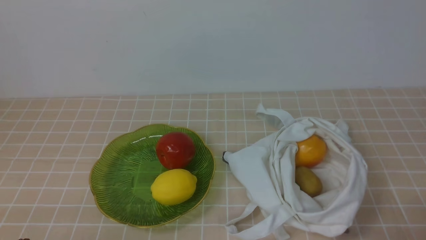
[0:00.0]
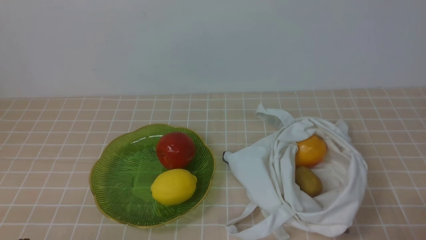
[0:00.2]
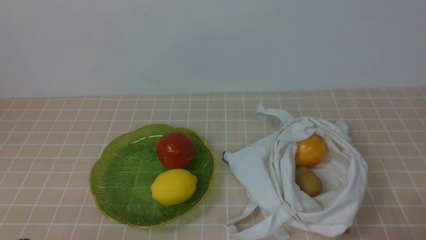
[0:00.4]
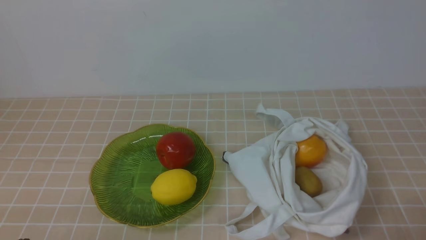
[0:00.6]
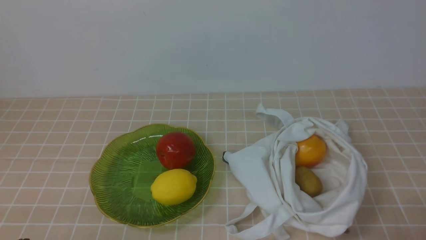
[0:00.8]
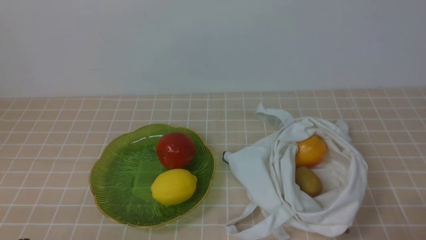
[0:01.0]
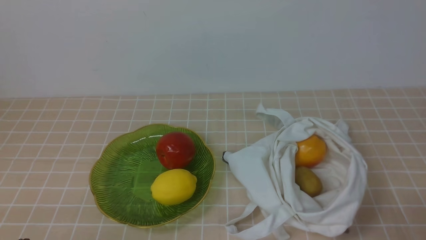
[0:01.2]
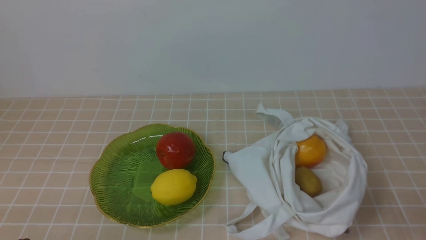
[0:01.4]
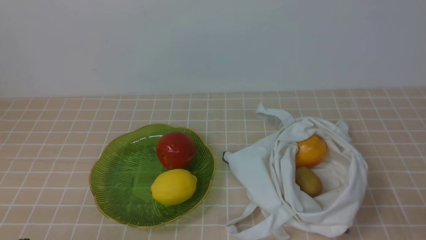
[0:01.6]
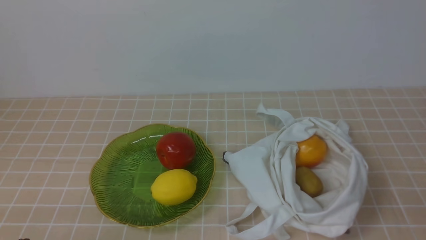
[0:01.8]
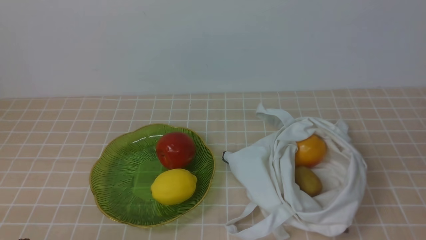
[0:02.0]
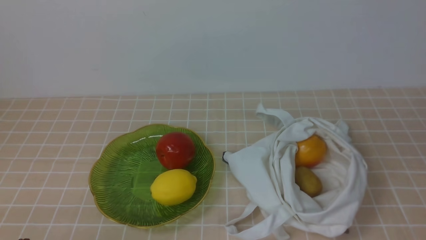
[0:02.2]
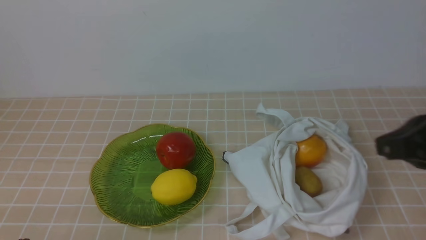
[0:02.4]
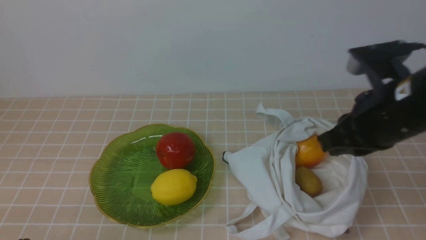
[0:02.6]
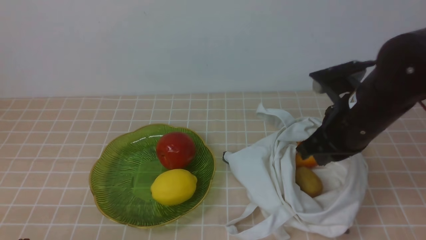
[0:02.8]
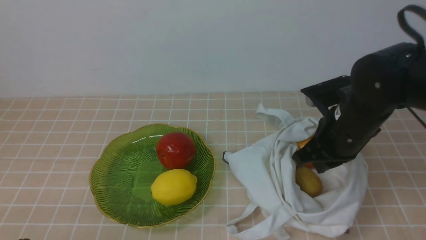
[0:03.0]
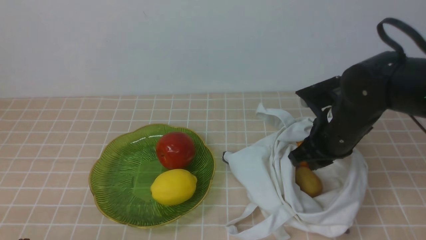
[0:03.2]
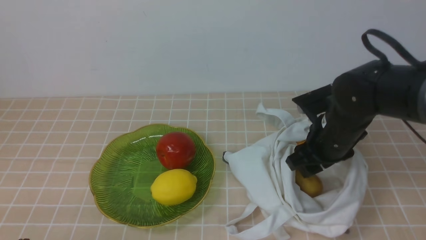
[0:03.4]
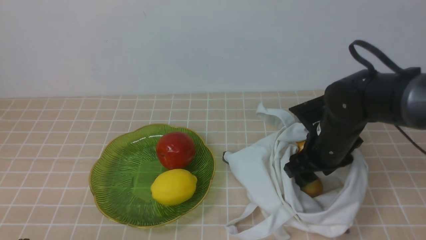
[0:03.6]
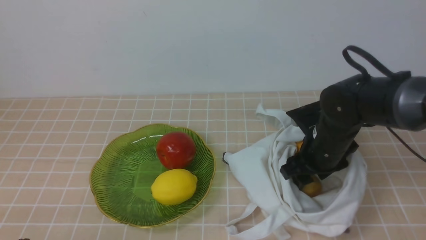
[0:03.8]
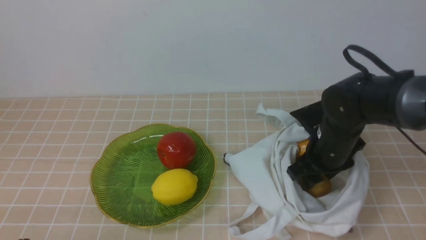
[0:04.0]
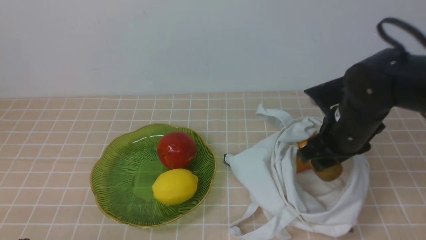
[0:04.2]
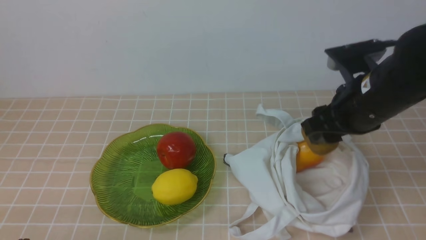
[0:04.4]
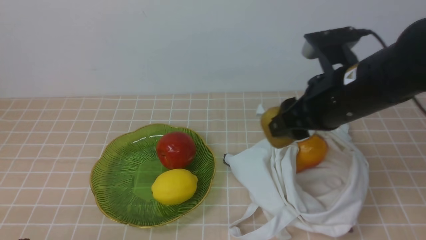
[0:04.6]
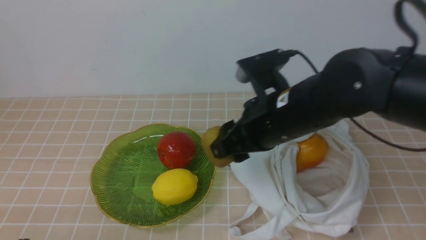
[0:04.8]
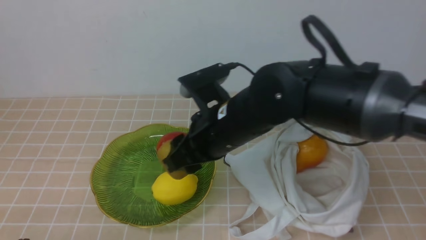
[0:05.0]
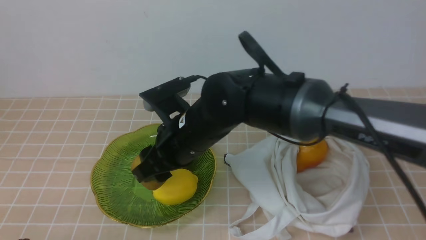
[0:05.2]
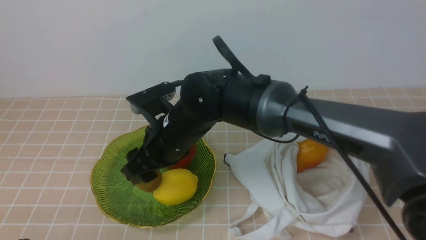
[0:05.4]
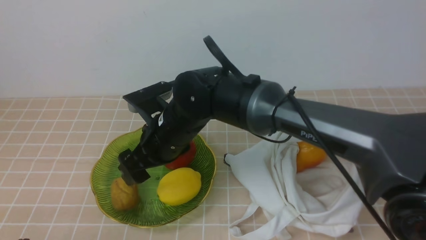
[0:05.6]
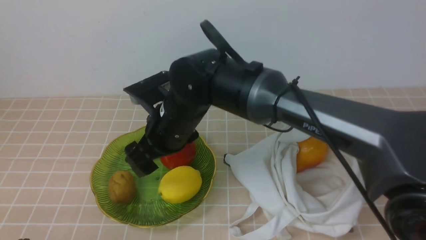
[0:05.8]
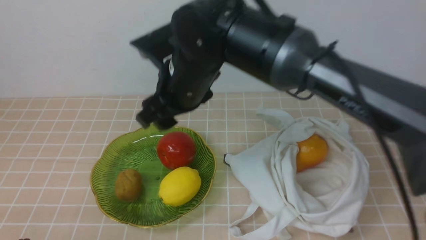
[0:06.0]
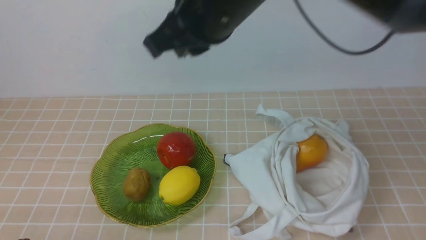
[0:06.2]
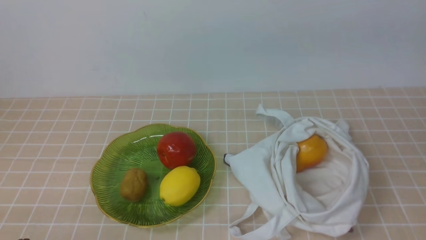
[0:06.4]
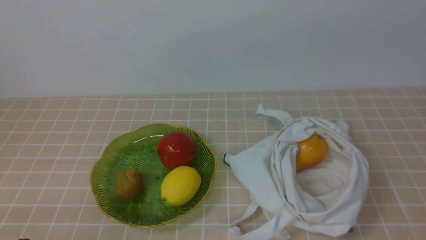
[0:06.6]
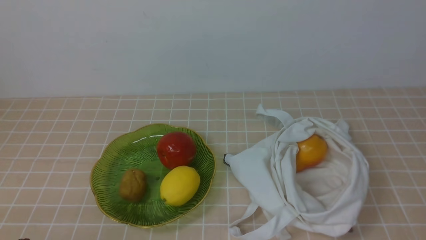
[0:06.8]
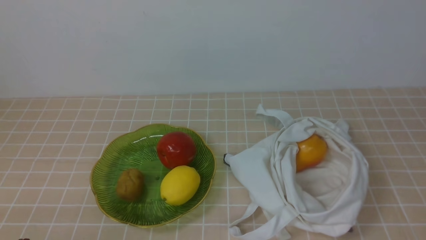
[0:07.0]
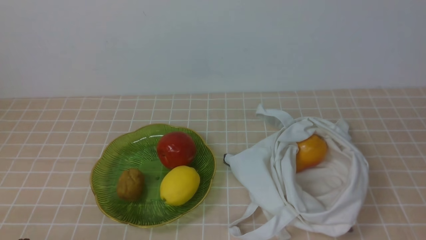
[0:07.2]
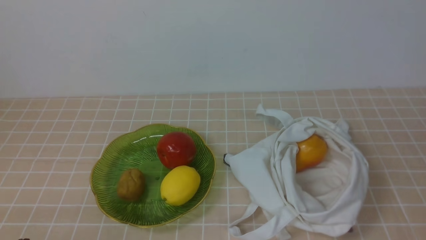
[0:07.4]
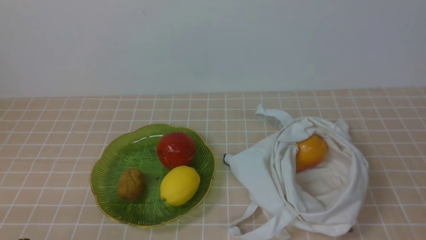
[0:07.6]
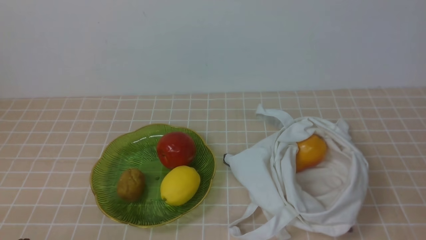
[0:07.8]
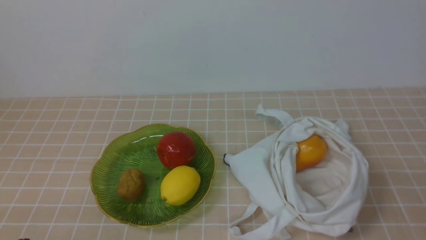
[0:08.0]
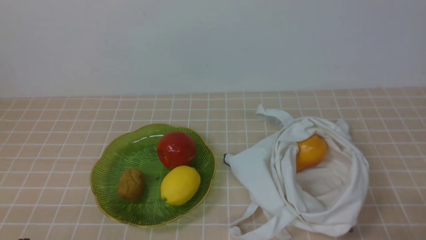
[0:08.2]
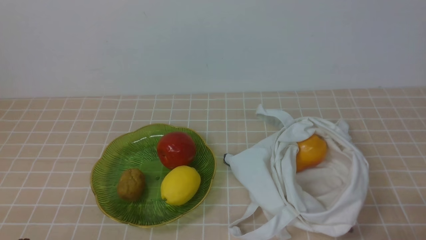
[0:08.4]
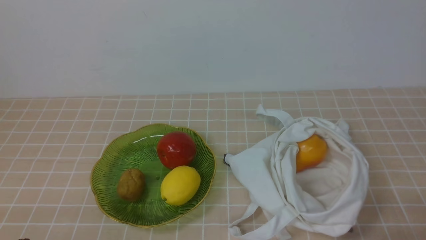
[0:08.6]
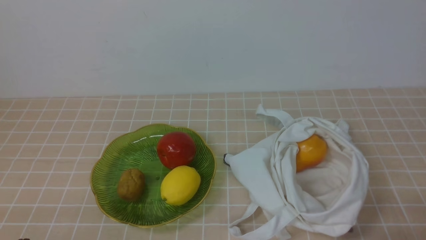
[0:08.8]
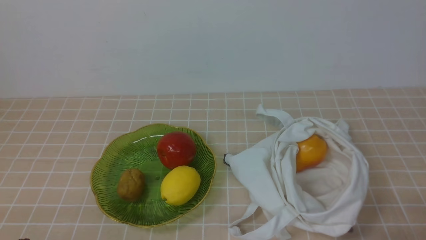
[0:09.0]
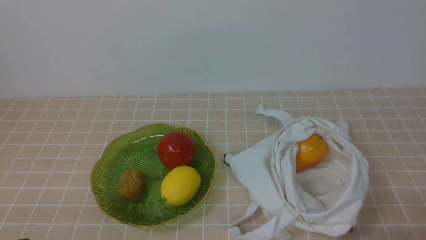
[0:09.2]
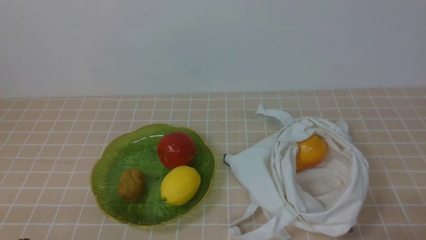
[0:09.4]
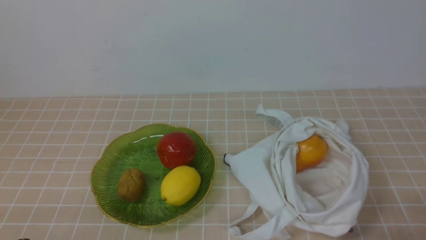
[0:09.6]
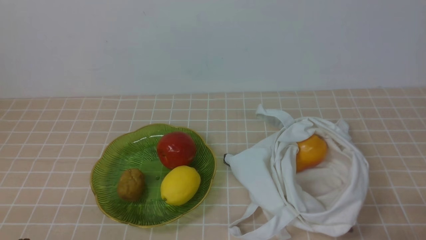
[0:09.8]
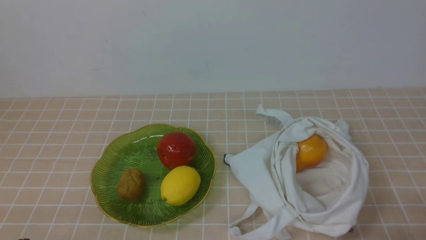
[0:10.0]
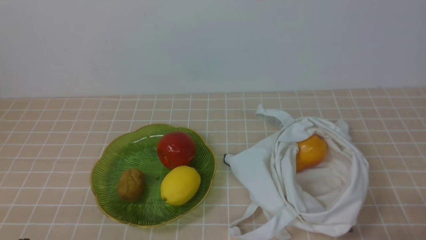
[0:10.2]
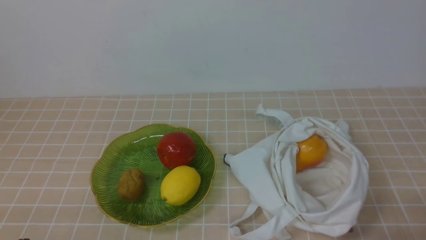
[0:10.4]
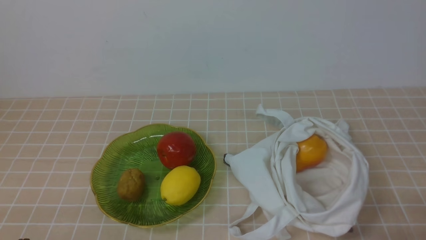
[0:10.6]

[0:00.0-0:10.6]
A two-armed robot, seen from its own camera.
Step, 0:00.0 to 0:04.0: use the right arm to grab a kiwi from the bag.
Step, 0:04.2 to 0:05.6: use the right arm to put the kiwi into the empty plate on the left.
0:01.6 to 0:03.0: The right gripper is displaced forward and to the left by roughly 30 cm.
0:03.0 to 0:04.6: The right gripper is displaced upward by roughly 5 cm, and opens.
0:04.6 to 0:06.0: The right gripper travels to the left by about 15 cm, and opens, then closes once more.
0:06.0 to 0:07.6: The right gripper goes roughly 40 cm to the right and backward, and closes its fingers.
0:09.0 to 0:10.6: The two grippers keep their place.
